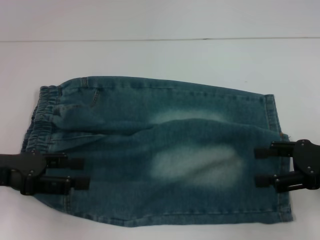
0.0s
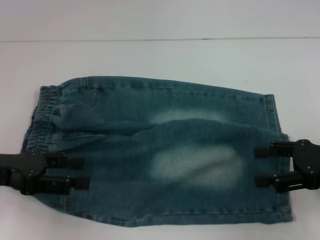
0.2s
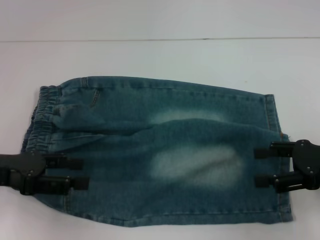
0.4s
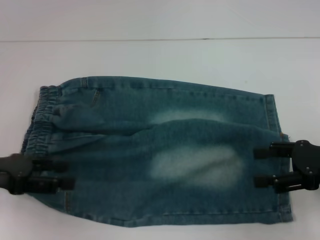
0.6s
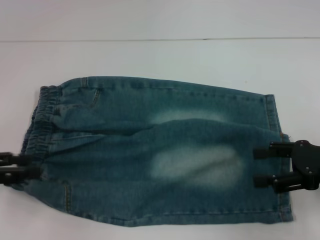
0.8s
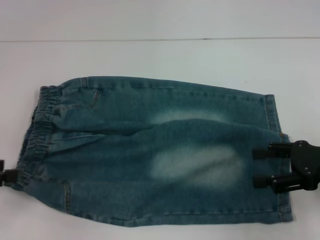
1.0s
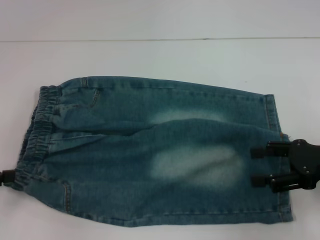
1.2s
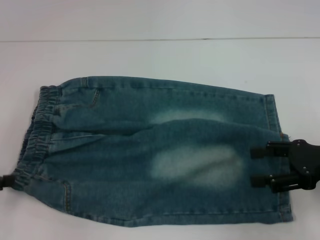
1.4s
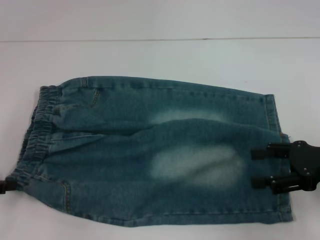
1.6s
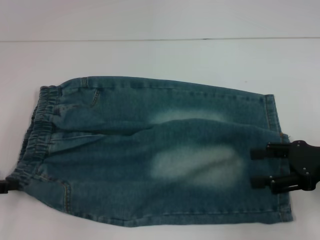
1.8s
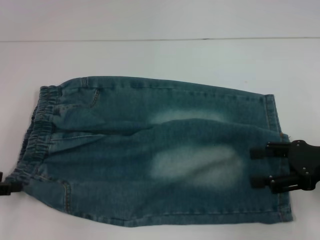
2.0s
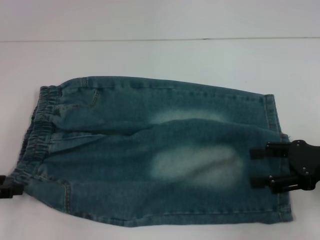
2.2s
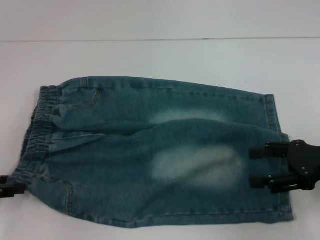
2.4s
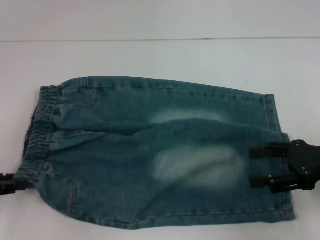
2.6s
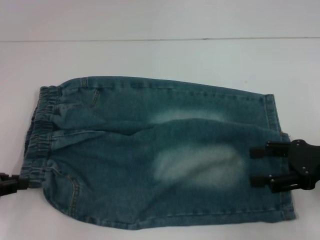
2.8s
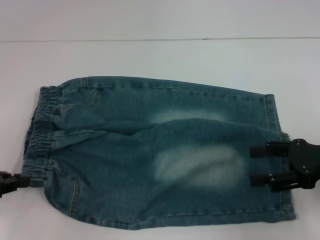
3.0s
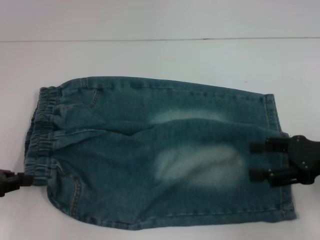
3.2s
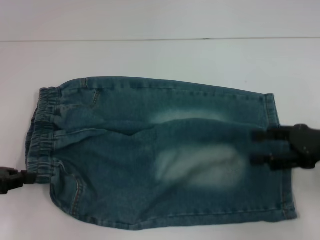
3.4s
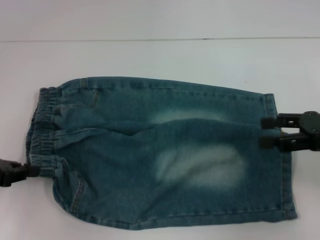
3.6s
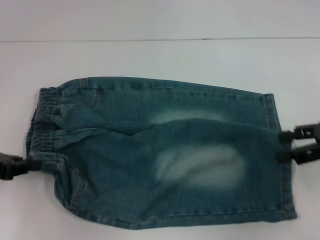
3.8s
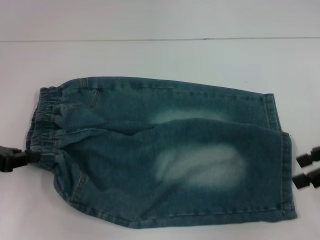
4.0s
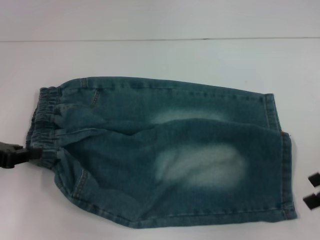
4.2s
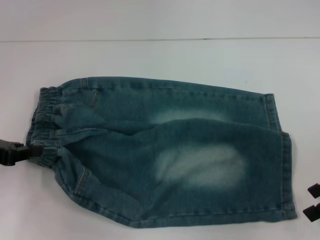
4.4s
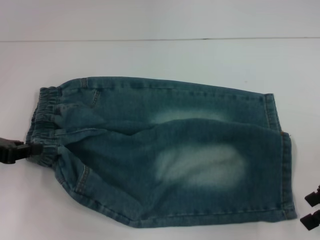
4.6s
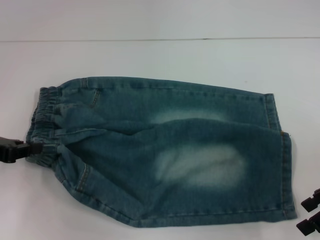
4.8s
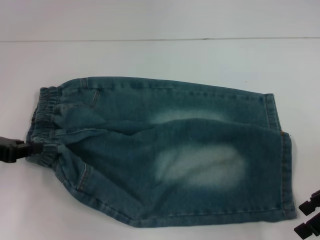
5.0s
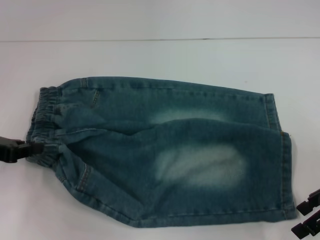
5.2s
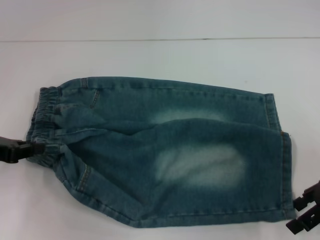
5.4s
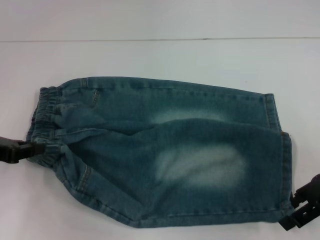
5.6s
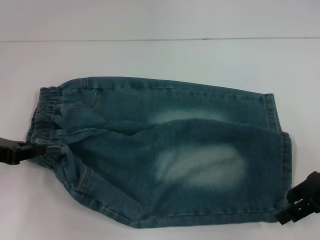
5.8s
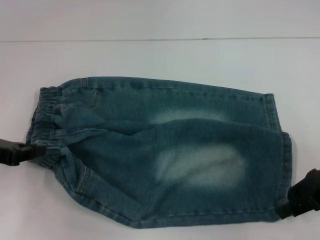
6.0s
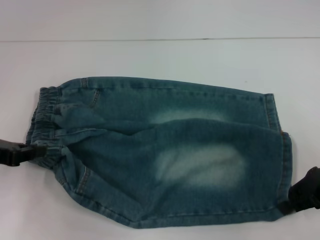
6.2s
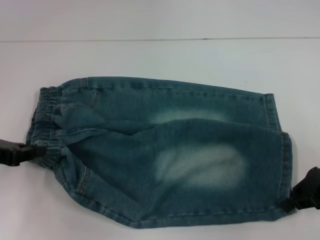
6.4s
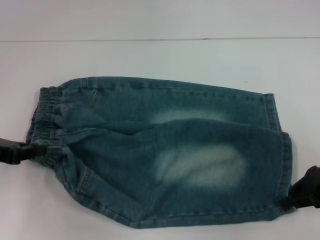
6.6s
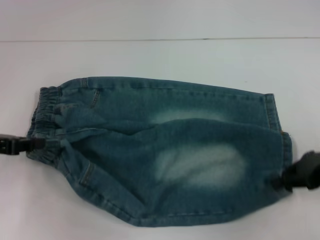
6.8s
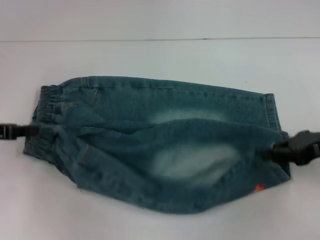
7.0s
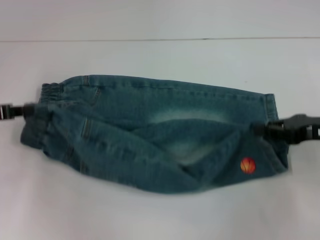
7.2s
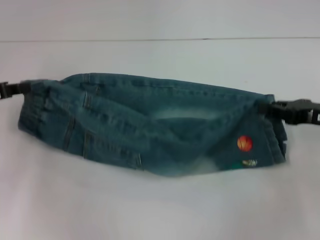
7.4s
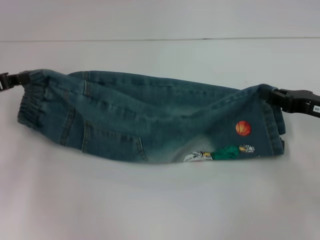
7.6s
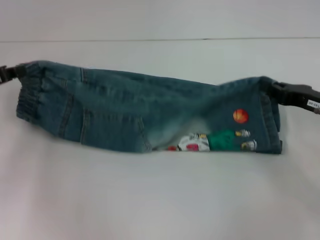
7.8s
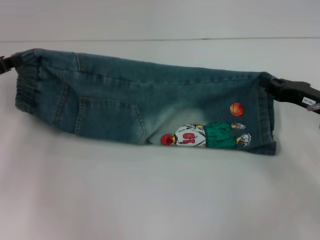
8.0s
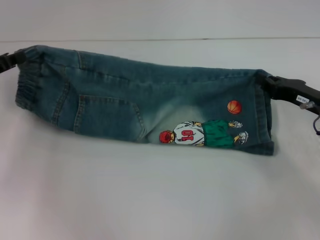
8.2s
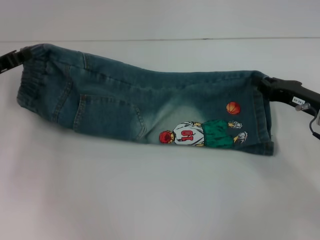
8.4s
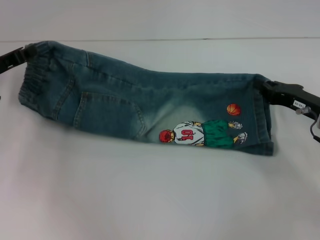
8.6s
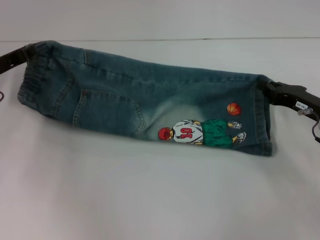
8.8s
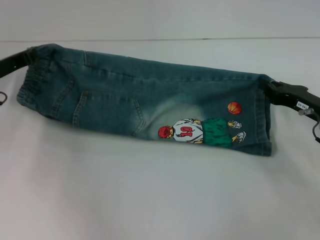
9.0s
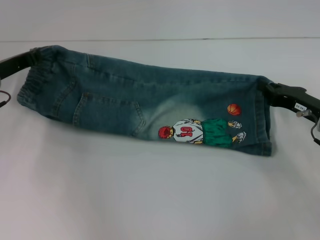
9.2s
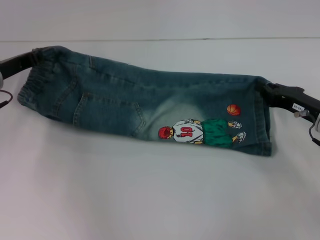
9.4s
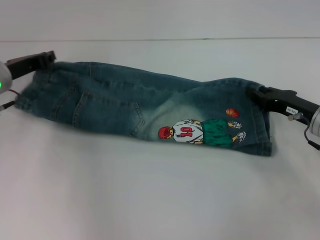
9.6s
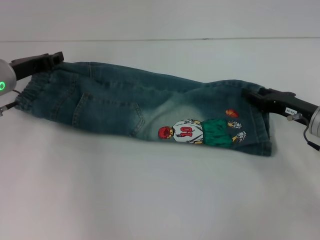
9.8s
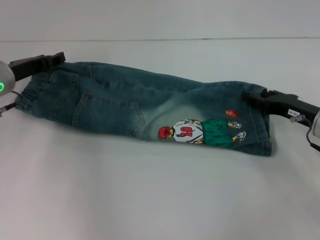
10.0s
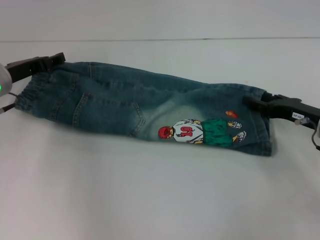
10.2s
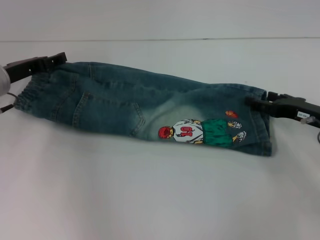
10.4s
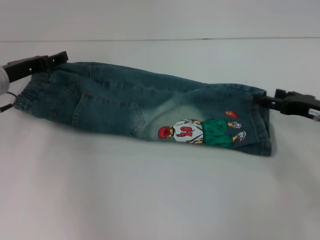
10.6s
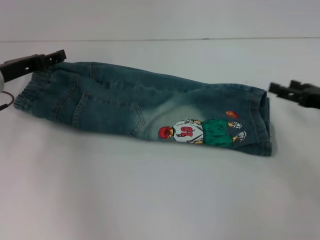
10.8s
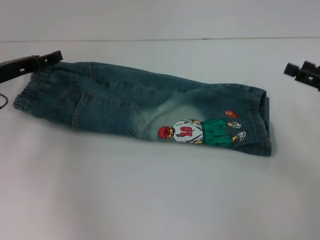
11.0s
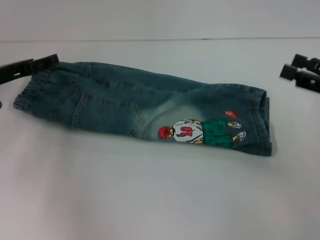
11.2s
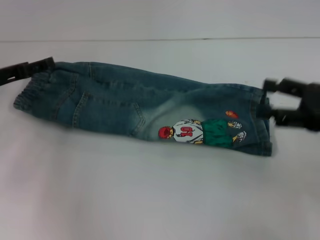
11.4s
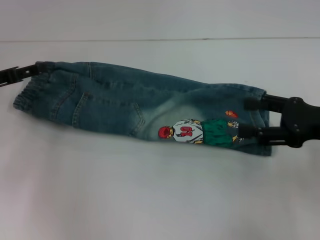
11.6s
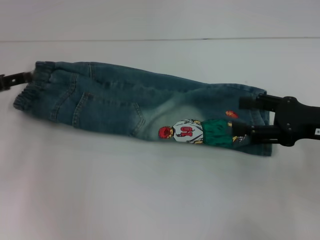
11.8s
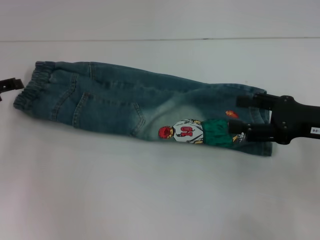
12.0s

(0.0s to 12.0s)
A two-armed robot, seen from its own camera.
Step, 0.0s - 3.2s: Hold the lower left waistband with your left hand.
Step, 3.4s - 6.4s: Grab the lower right pant leg with your right hand.
Step, 6.6s - 10.6s: Fold upward with your right hand.
0.0s - 1.6s: The left gripper is displaced to the left by about 10 cm.
1.6s - 3.0s: The left gripper closes up.
3.0s - 4.4s: The right gripper moves roughly 5 cm.
4.4s - 6.0s: The right gripper ends up approximately 5 cm from where it was, and closes up.
6.0s - 7.6s: The left gripper ends up about 5 cm from where it was; the right gripper closes up.
7.6s - 9.0s: The left gripper travels forward by approximately 5 cm.
9.0s - 10.4s: The right gripper opens, while the left gripper opens its fingers.
10.4s - 12.0s: The left gripper moves to the left, some 10 cm; the right gripper shifts roughly 5 cm upward.

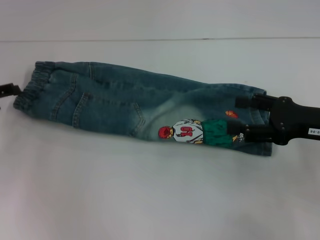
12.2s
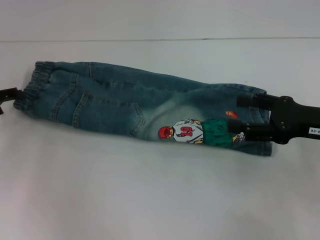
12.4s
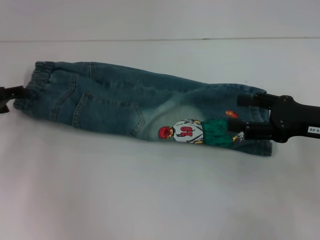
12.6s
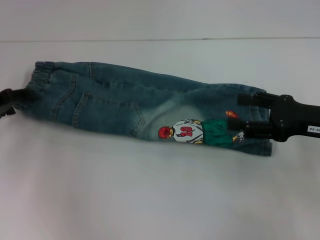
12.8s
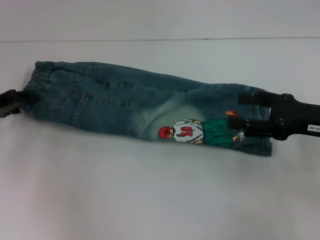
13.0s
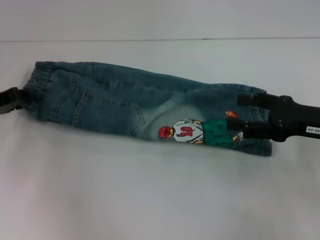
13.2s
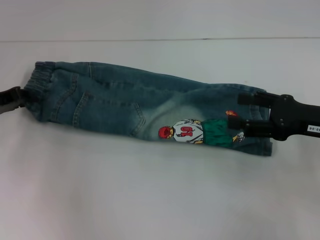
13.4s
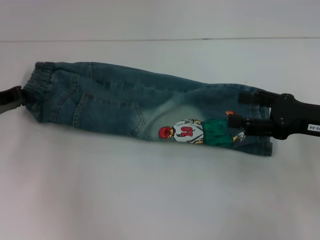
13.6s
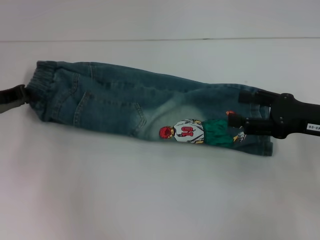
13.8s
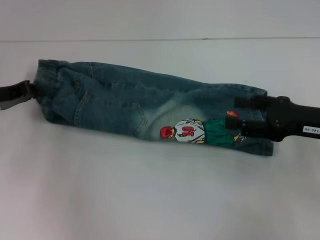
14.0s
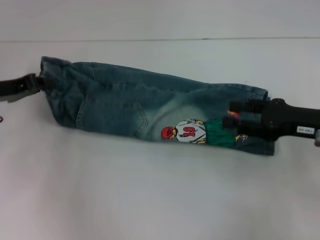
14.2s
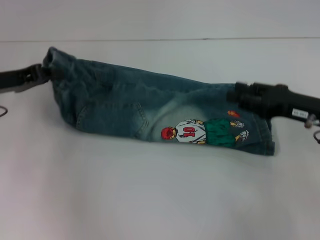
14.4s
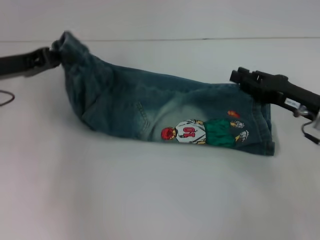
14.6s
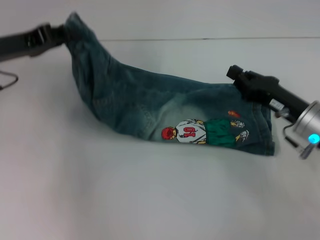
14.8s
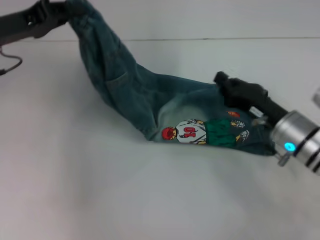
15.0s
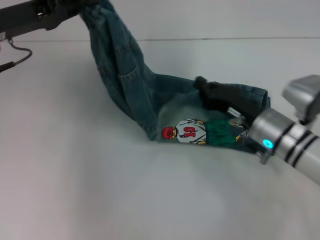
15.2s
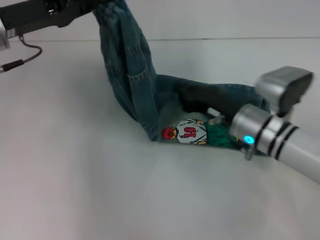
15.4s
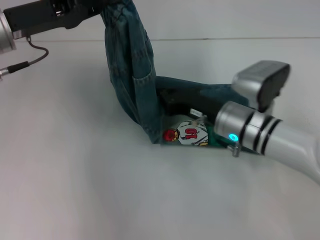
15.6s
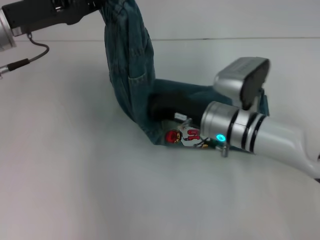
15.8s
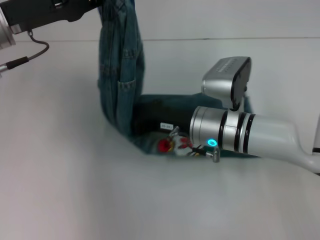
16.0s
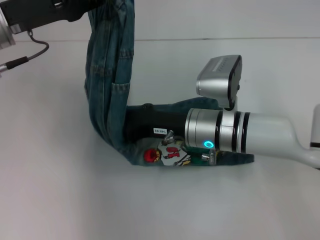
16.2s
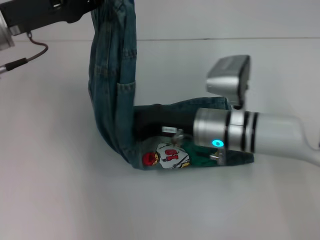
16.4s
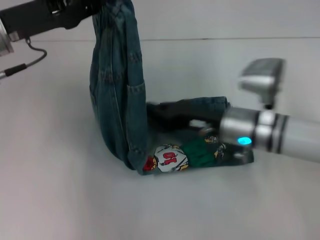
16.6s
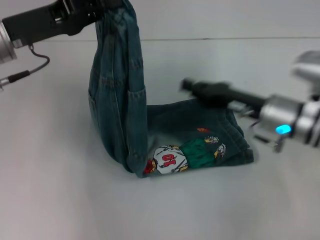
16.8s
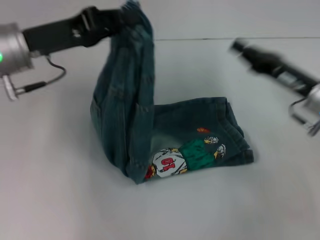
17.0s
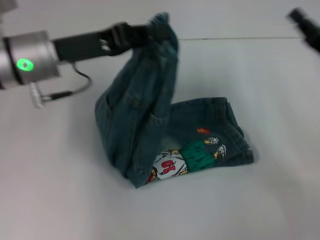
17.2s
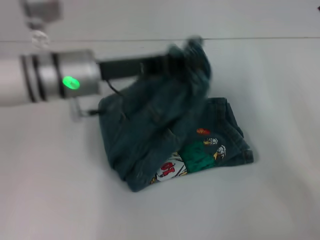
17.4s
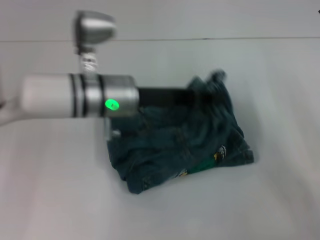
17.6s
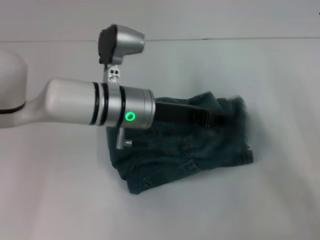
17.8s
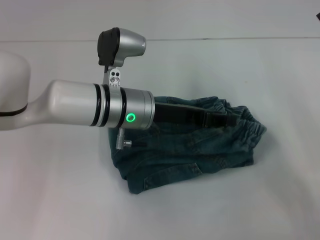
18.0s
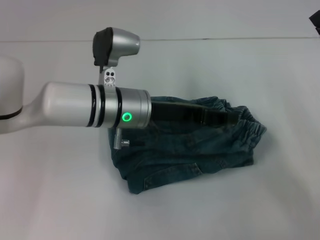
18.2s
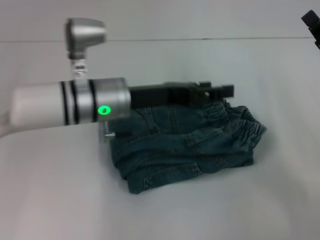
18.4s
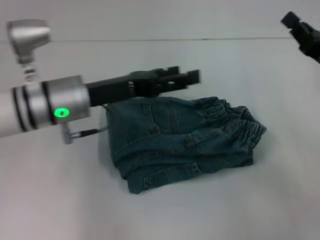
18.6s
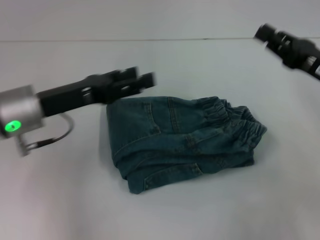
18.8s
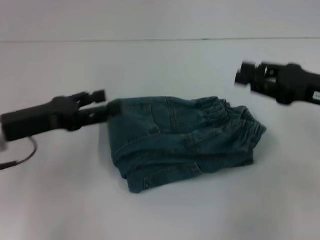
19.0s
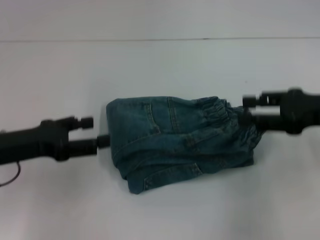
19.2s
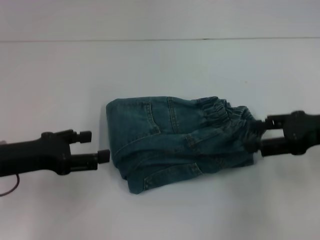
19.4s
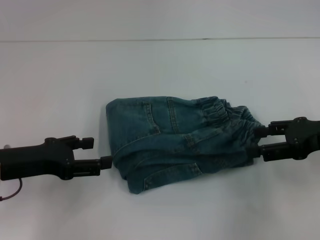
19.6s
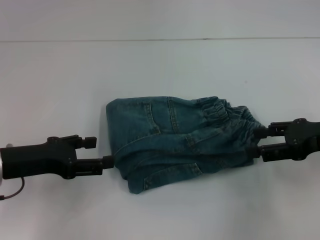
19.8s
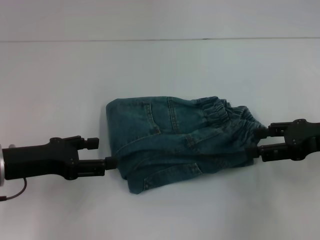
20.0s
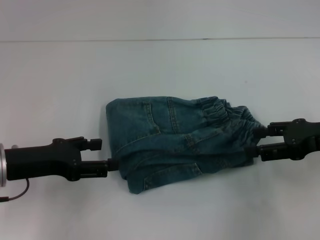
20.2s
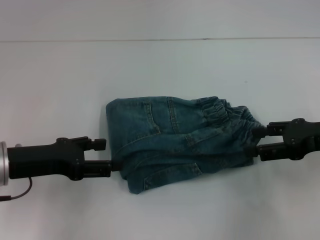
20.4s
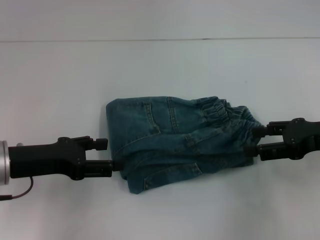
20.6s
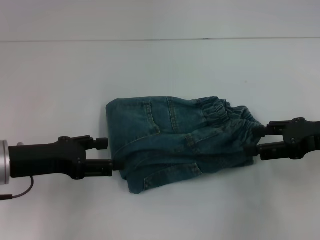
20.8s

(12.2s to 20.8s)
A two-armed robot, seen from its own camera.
Step, 12.2s - 13.6s: Hold the waistband with your left hand.
Step, 13.8s - 16.6s: Press the middle of the pants with your right hand.
Step, 16.8s - 18.2s: Fold to the right with your left hand.
12.2s - 13.6s: The left gripper closes its fingers.
13.6s - 15.0s: The left gripper is displaced upward and to the right by roughly 10 cm. The right gripper is displaced to the left and downward by about 10 cm, and closes up.
15.0s - 16.6s: The right gripper is displaced to the left by some 5 cm.
16.6s - 18.0s: The left gripper goes roughly 20 cm to the right and downward, while the right gripper heads to the right, covering approximately 15 cm.
18.0s - 19.4s: The right gripper heads upward, covering some 5 cm, and opens; the left gripper moves to the left and backward, roughly 20 cm, and opens up.
19.4s - 20.8s: The grippers make only small movements.
